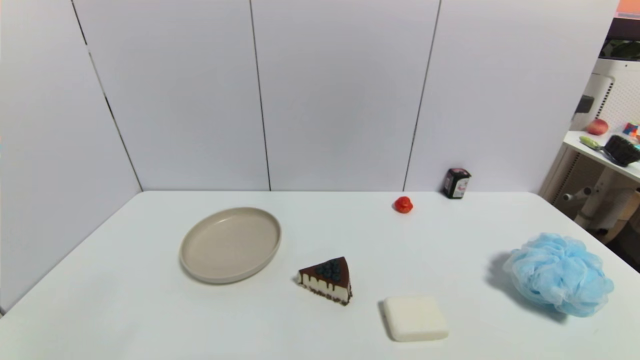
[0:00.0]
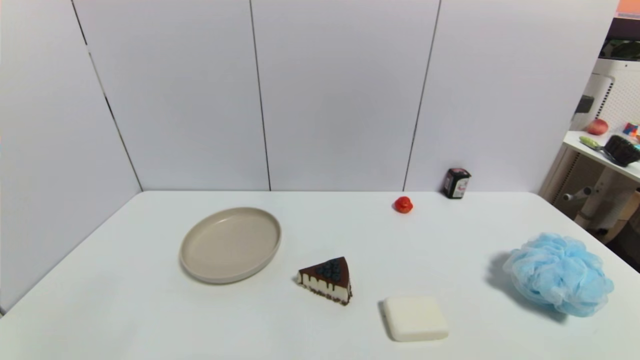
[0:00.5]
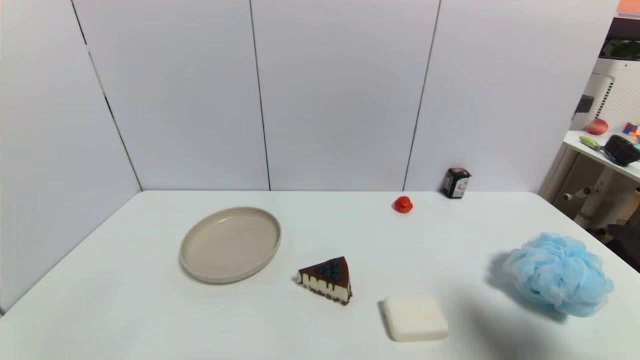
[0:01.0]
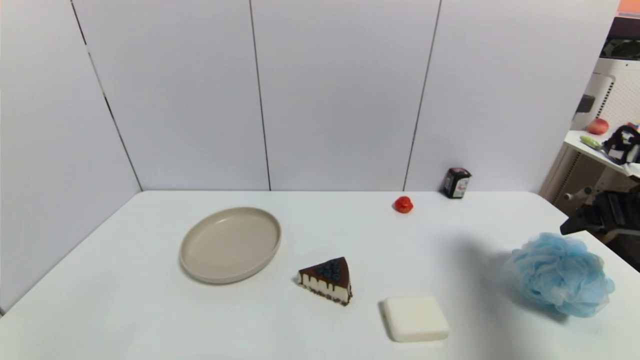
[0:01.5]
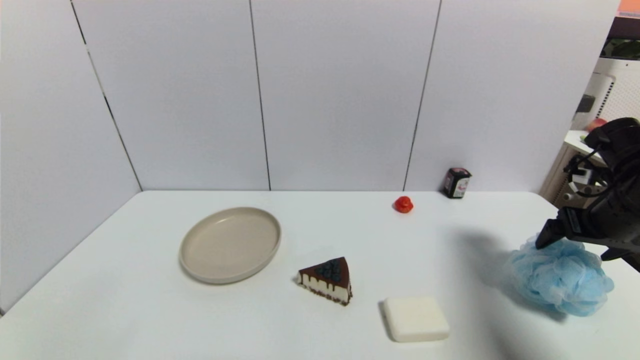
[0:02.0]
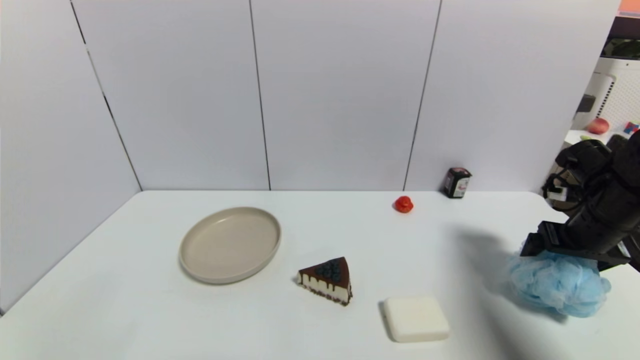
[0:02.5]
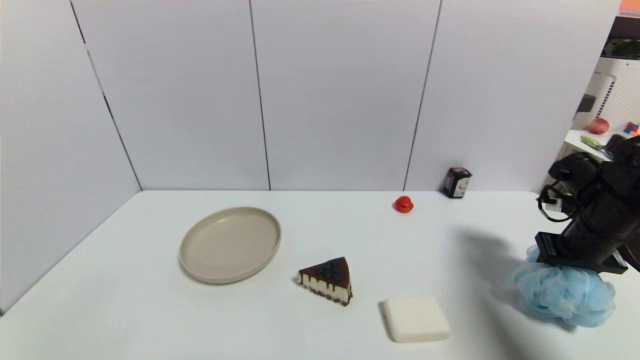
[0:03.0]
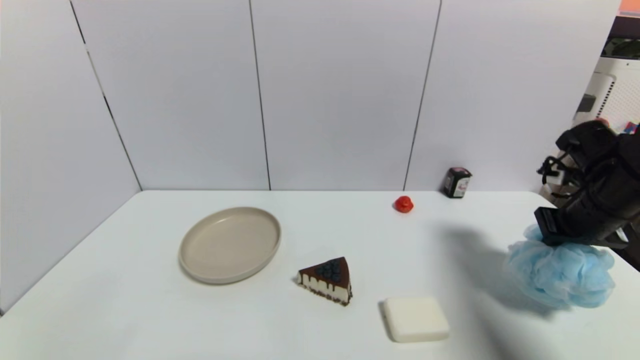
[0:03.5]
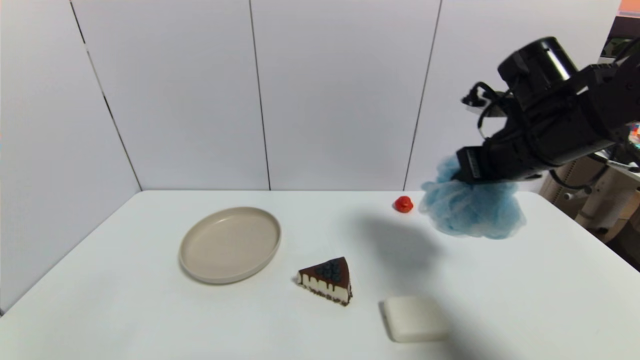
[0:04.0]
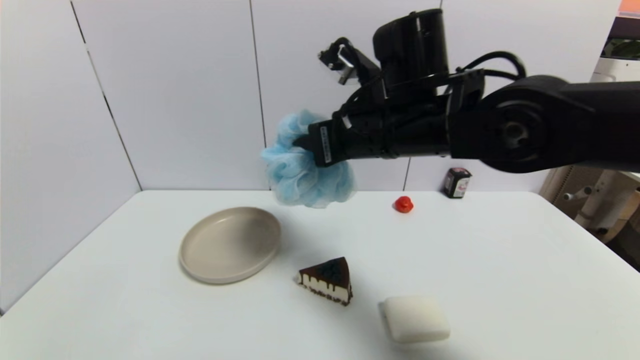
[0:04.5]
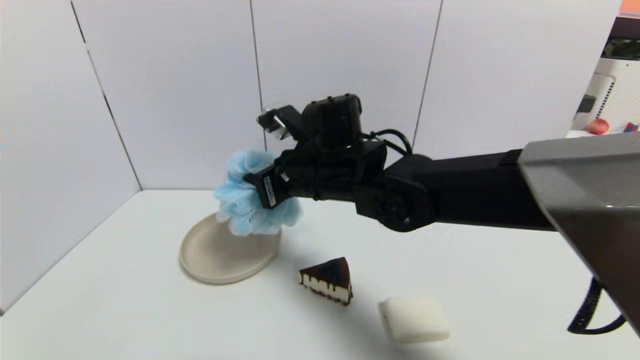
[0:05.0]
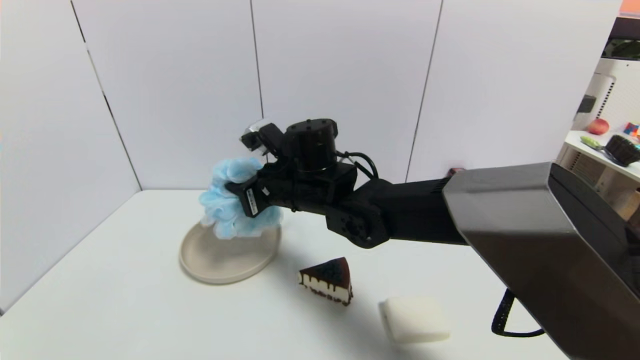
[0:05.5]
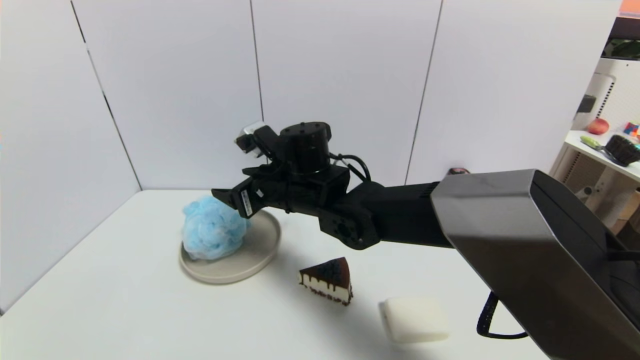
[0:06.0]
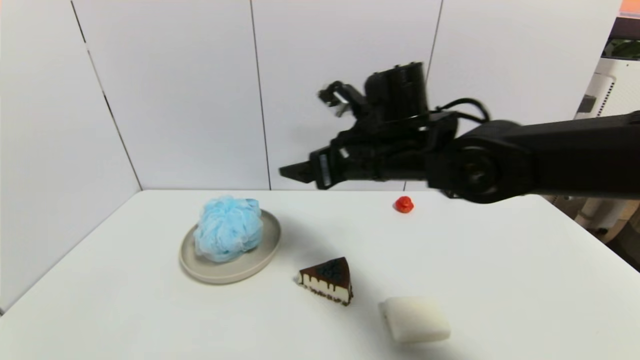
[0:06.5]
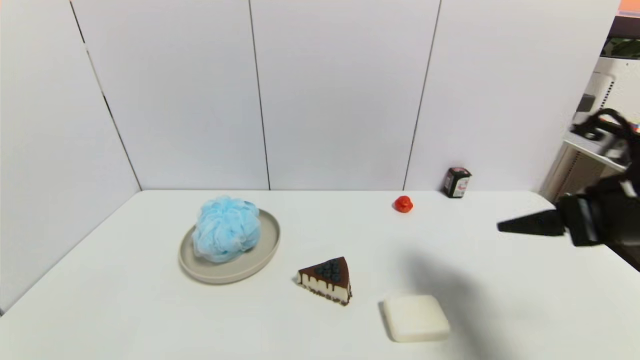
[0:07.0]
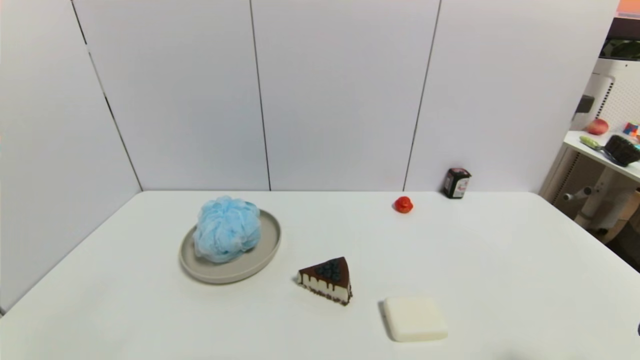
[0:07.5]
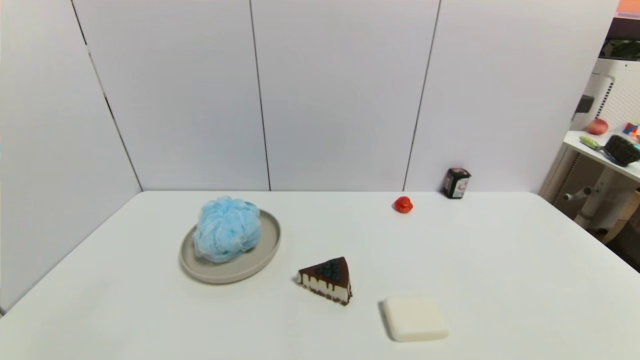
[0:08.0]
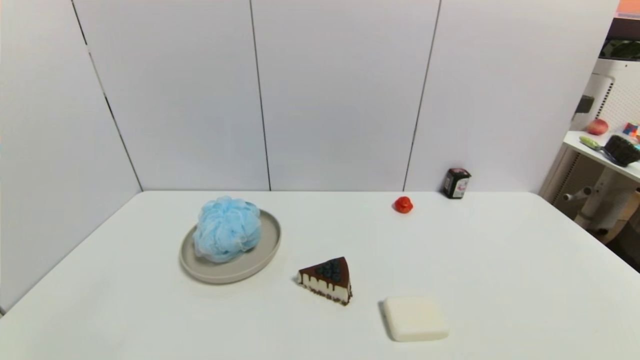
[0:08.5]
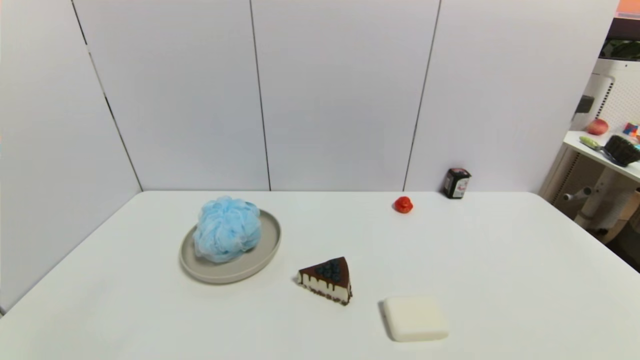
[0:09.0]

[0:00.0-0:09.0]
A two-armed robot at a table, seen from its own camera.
Task of the whole recording: use a gripper to pick the target object and place on the brown plate.
Step, 0:00.0 to 0:03.0: Grasp the shower sphere with the right gripper.
Step, 0:03.5 to 0:06.0: Place the shower sphere on the brown plate with the right gripper.
0:00.0 to 0:02.0: The right gripper heads forward, covering approximately 30 cm.
0:02.0 to 0:04.5: The right gripper shifts about 30 cm to the left, and closes.
0:04.5 to 0:07.0: The right gripper heads to the right and backward, covering about 30 cm, and opens.
0:07.0 to 0:09.0: The right gripper goes roughly 25 cm backward and downward.
